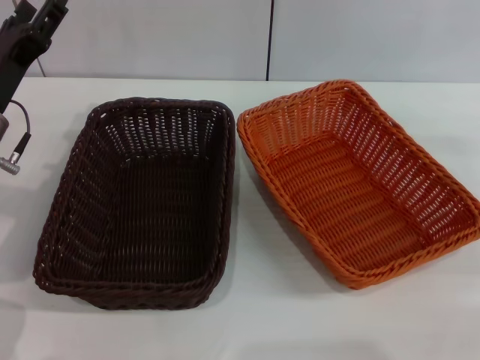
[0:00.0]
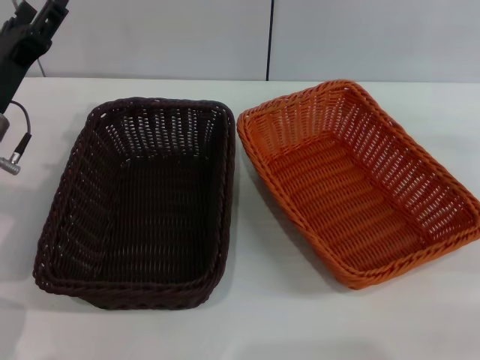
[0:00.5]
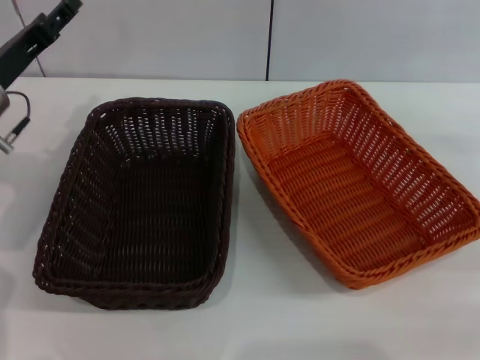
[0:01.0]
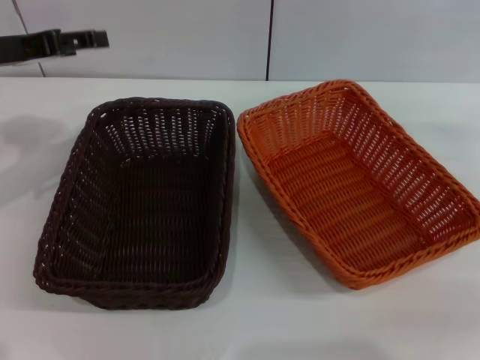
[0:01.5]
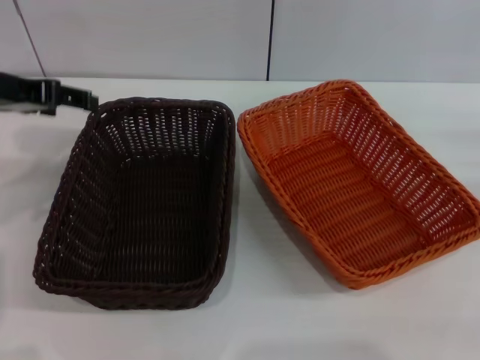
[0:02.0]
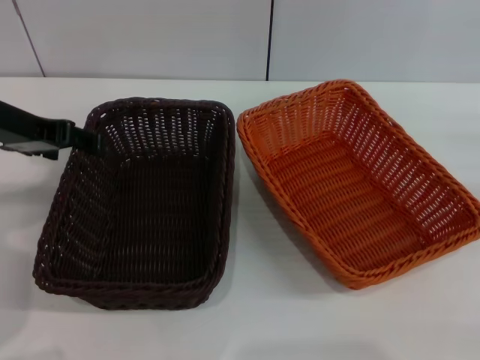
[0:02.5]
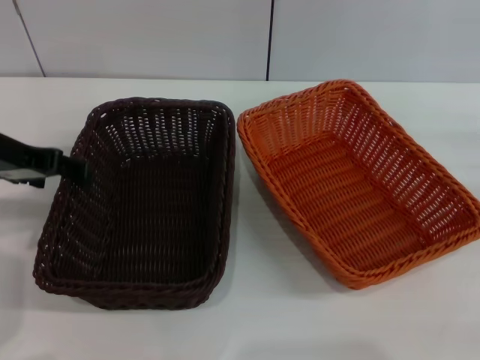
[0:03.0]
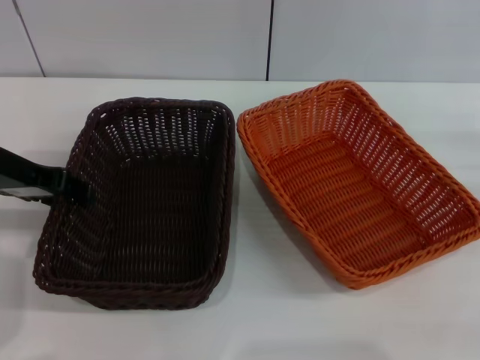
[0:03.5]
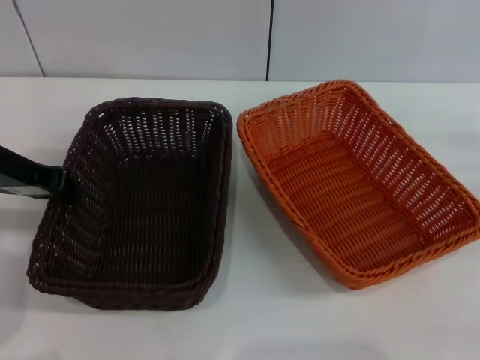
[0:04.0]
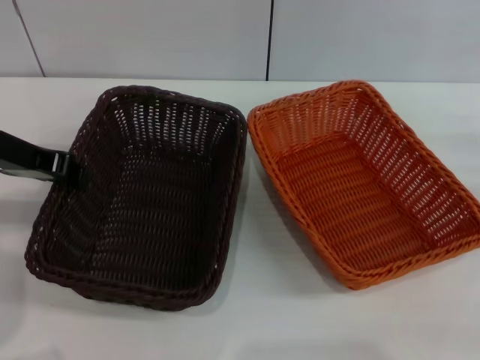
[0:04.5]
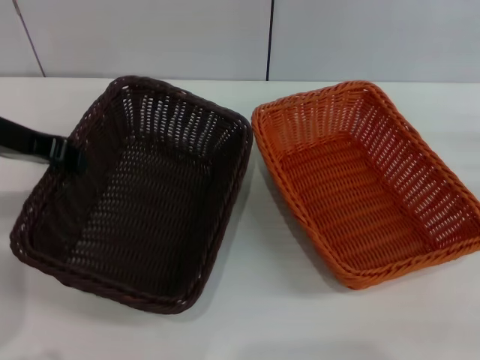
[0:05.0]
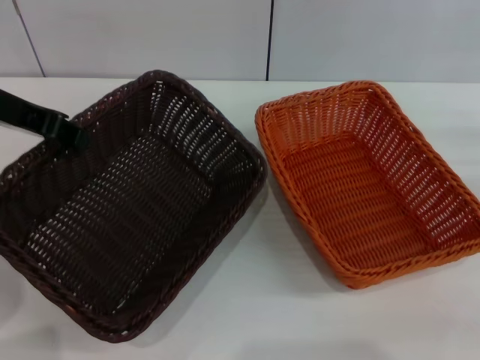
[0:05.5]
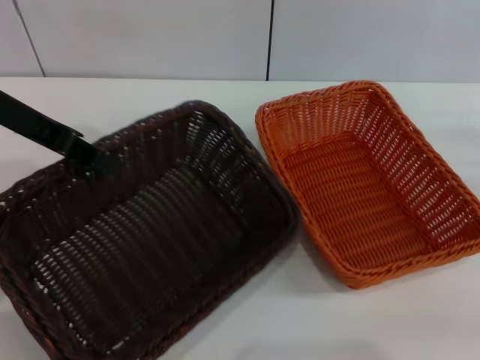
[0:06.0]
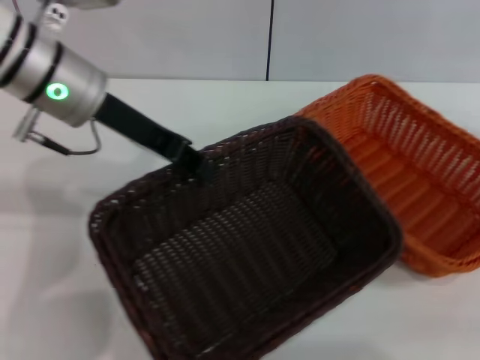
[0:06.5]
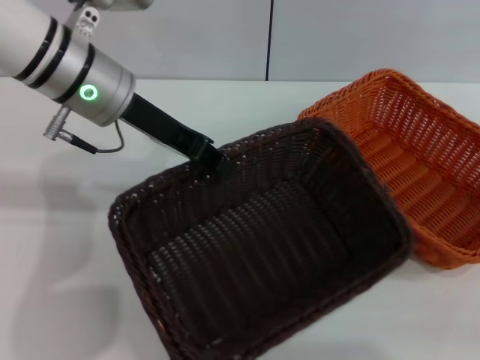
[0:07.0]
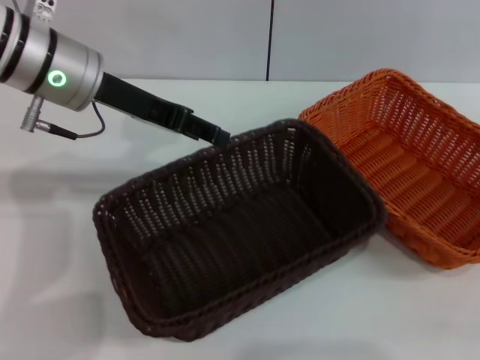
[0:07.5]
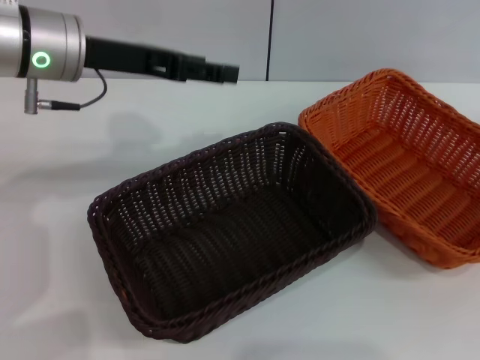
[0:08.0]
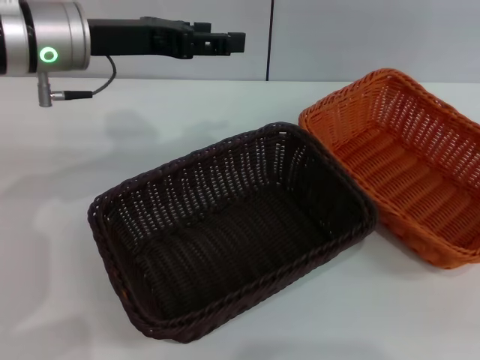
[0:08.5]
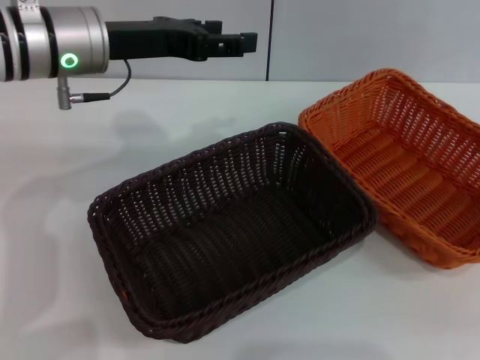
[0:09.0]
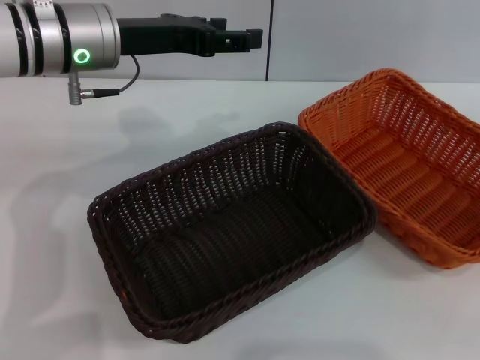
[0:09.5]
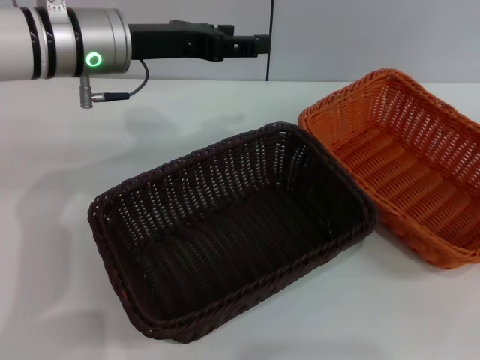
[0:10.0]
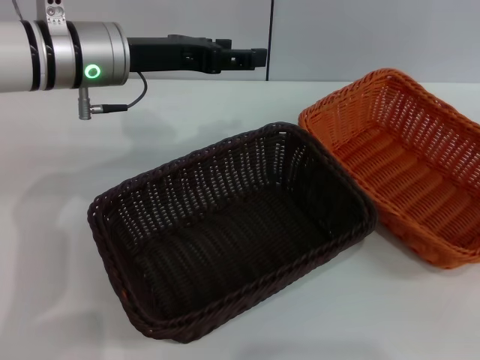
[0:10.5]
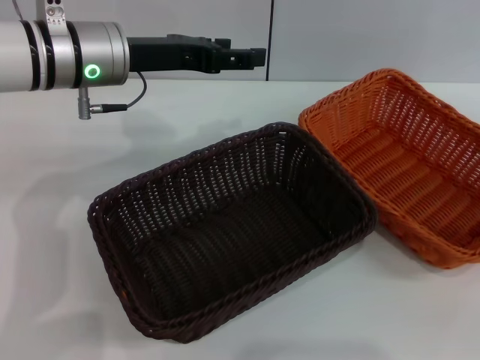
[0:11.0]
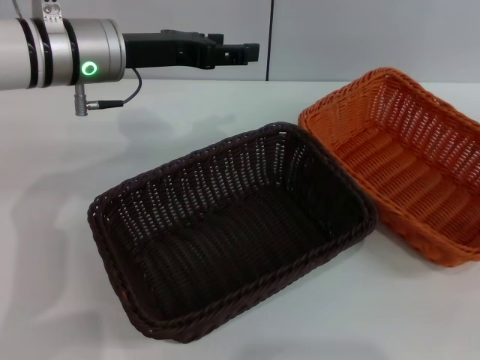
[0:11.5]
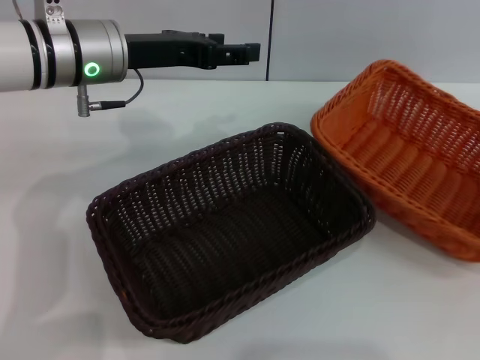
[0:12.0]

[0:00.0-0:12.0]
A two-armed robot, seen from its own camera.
Step, 0:00.0 to 0:04.5: Pick up the dark basket with the left gripper.
Step, 0:05.0 to 0:07.5: Place the dark basket in the center of view with the left gripper.
0:00.0 to 0:02.0: The left gripper is displaced upward by approximately 10 cm.
0:02.0 to 0:04.0: The left gripper closes up.
0:04.0 to 0:06.0: The left gripper heads upward, covering roughly 5 cm.
0:06.0 to 0:08.0: The left gripper is displaced to the right by some 5 cm, and opens; the right gripper moves upward, some 5 cm.
0:08.0 to 0:10.0: The right gripper goes about 10 cm backward and upward.
0:10.0 to 0:12.0: The right gripper travels downward by approximately 10 cm, and closes up.

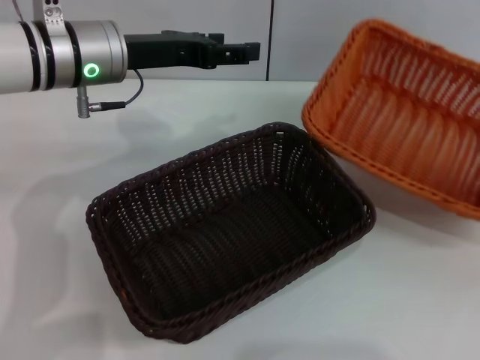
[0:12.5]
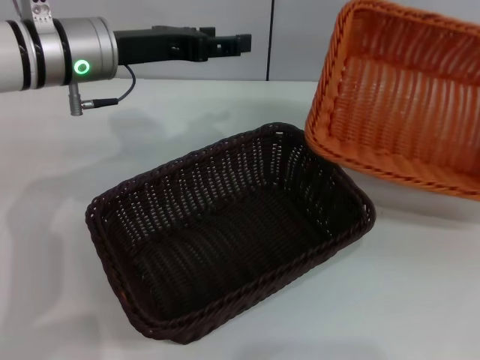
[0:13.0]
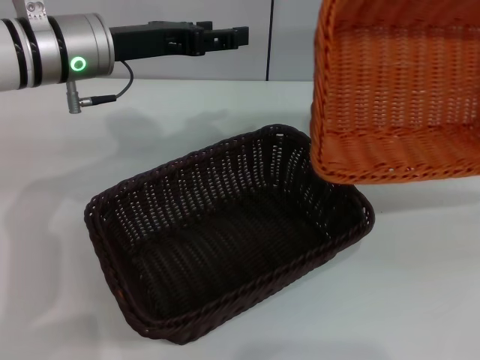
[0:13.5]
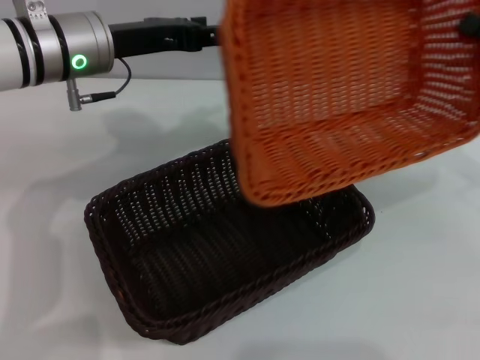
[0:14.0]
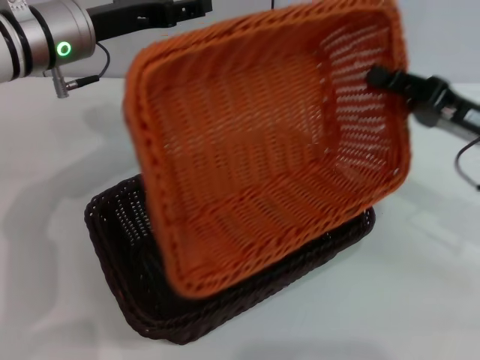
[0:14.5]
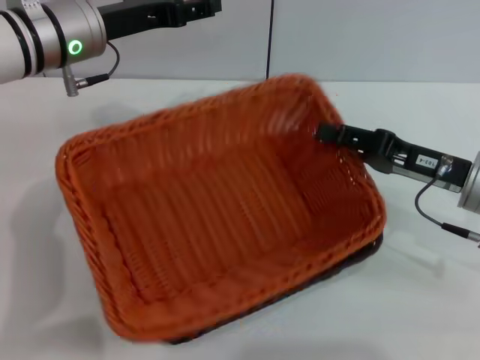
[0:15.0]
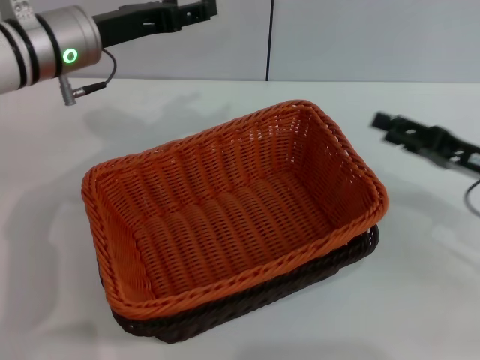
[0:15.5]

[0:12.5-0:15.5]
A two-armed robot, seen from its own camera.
Step, 0:13.0 to 0:15.0: Place the light basket on the dark basket with the right gripper.
0:12.5 to 0:14.0: The right gripper shifts some 10 cm to the left.
0:14.0 to 0:15.5: The right gripper heads downward, covering approximately 5 cm, and opens its fingers.

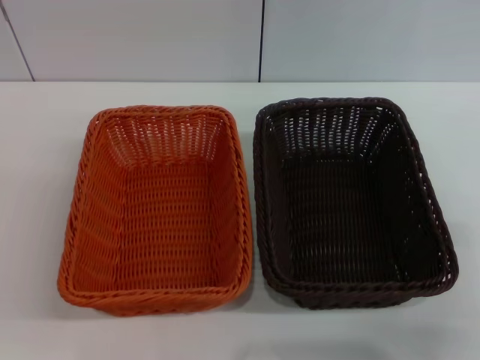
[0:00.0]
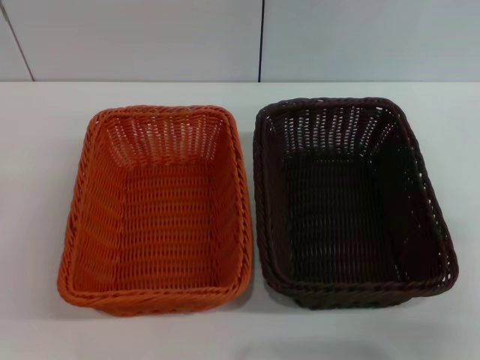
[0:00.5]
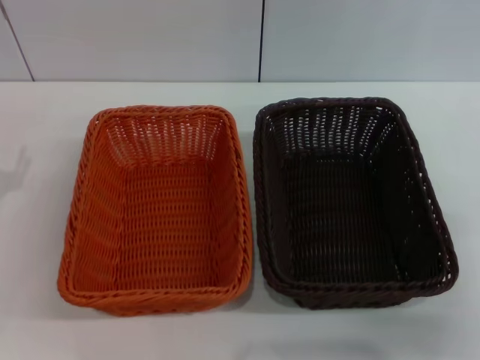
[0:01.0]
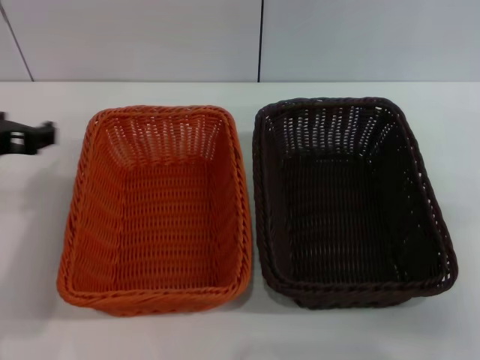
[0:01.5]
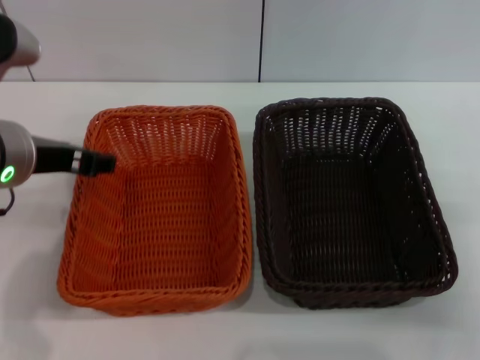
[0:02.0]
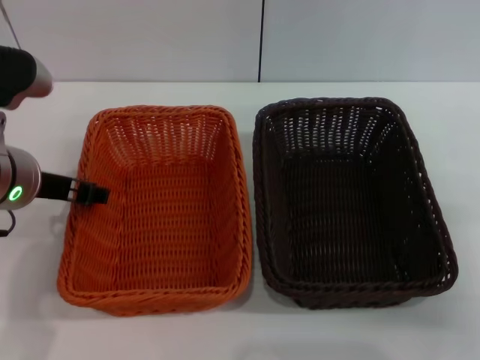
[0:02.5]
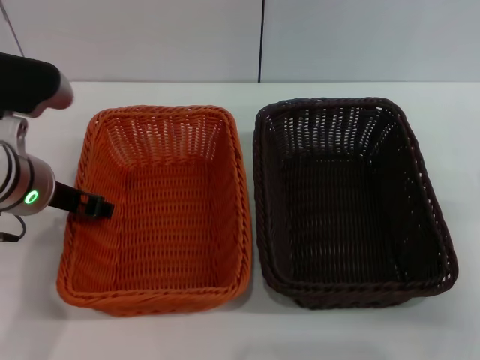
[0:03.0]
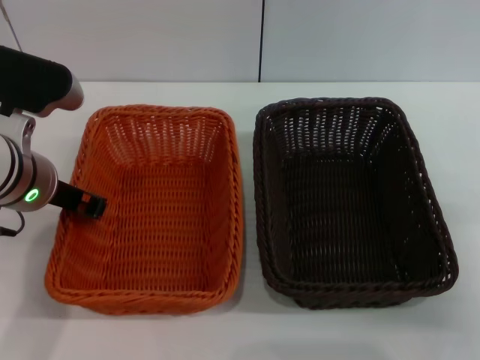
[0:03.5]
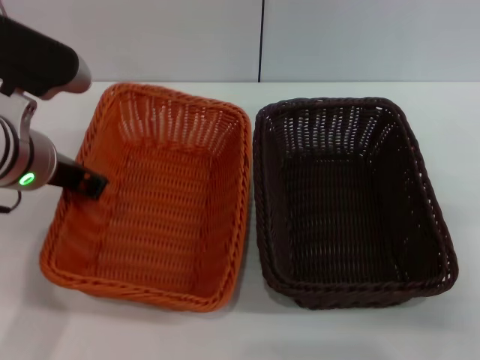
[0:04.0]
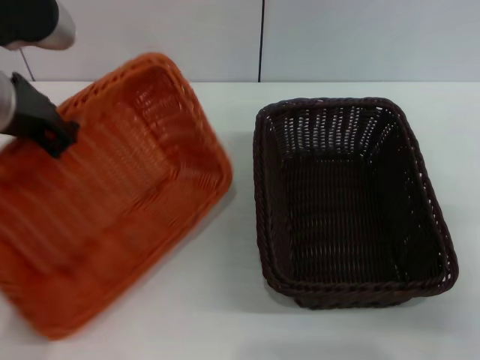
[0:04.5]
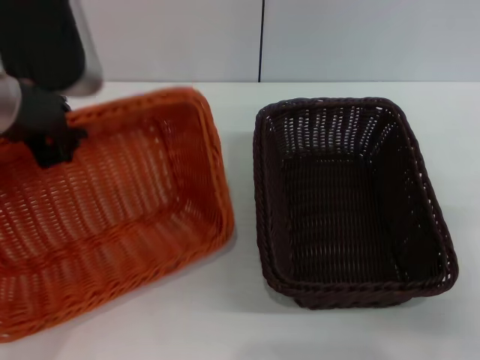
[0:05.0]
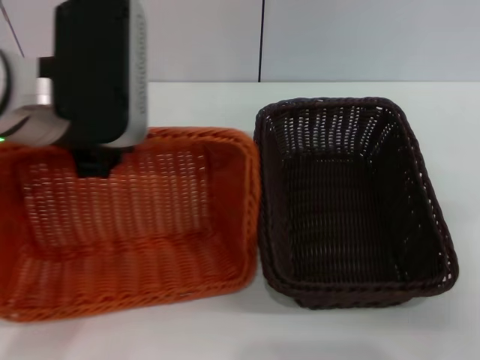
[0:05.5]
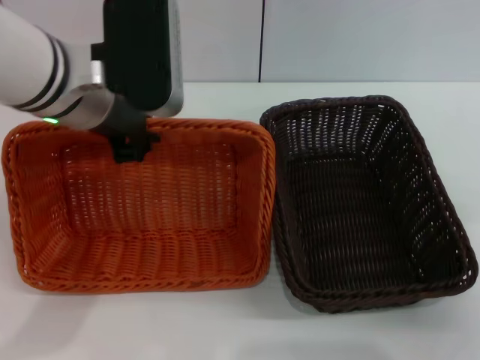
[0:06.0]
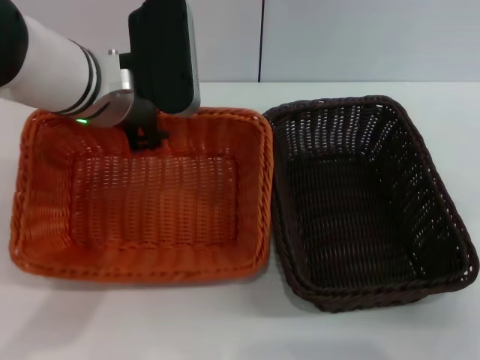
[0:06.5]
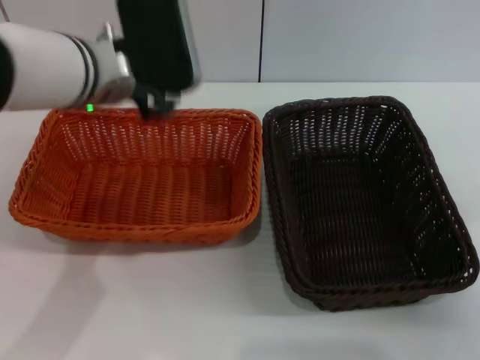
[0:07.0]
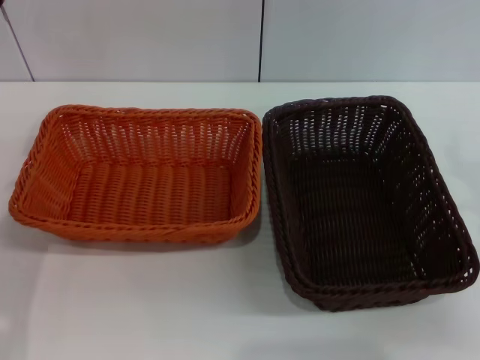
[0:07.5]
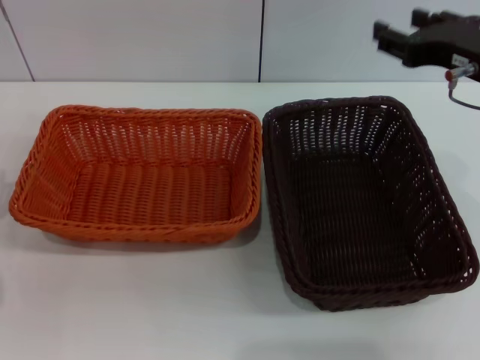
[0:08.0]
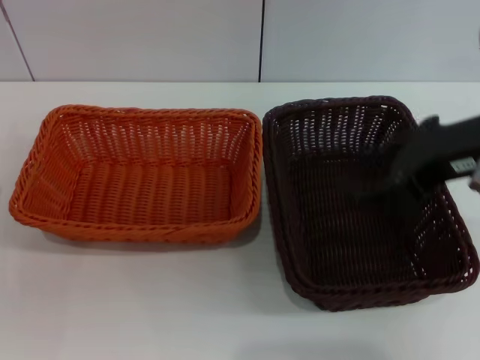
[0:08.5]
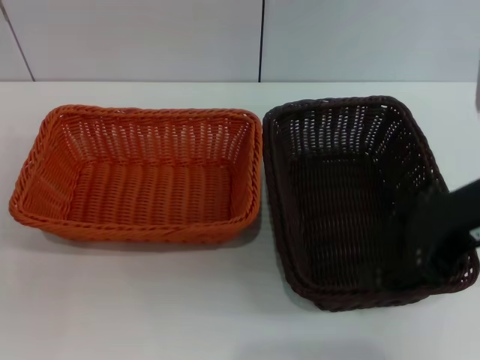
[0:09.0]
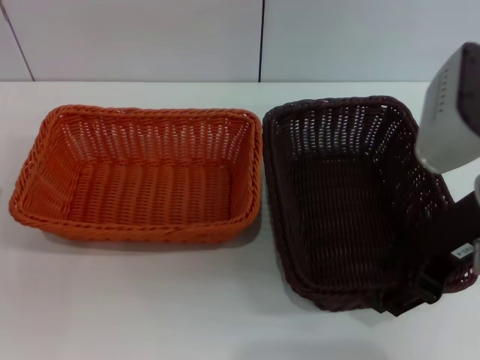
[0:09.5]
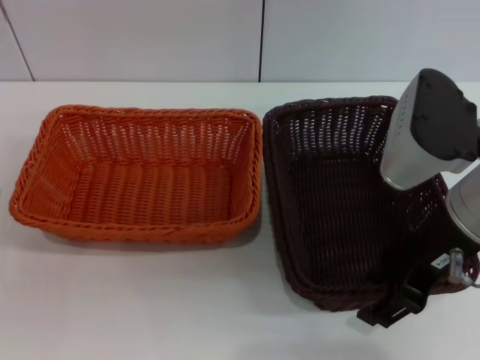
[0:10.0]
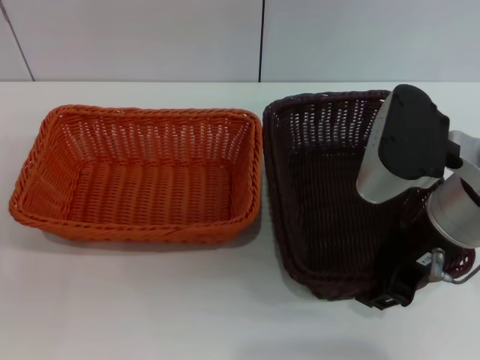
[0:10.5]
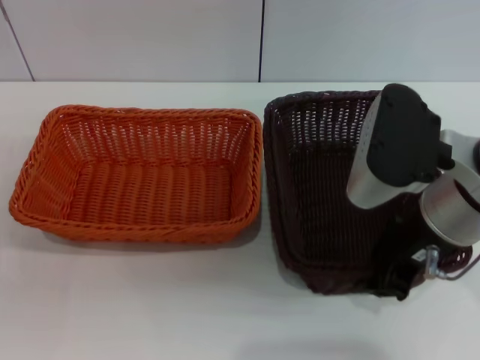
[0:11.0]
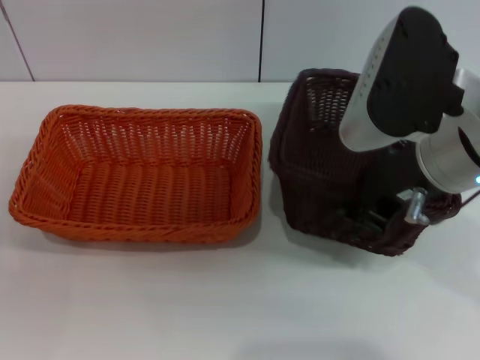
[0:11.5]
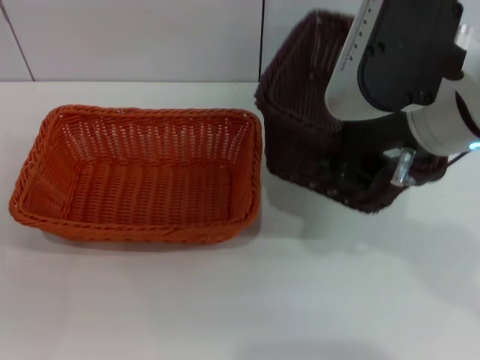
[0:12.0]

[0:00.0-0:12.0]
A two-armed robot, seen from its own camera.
Step, 0:00.0 to 0:04.0: Pick up the light basket with the left gripper.
Step, 0:04.5 to 0:06.5: Place the light basket in the center of view with the left gripper.
Step, 0:07.0 to 0:11.5: Pick up the dark basket with the right gripper.
0:00.0 to 0:02.0: The left gripper travels upward, to the right and forward by about 25 cm.
0:02.0 to 0:04.0: The left gripper closes.
0:04.0 to 0:06.0: The left gripper moves upward and to the right, approximately 10 cm.
0:06.0 to 0:08.0: The left gripper moves to the left, downward and backward, approximately 25 cm, and opens its fingers. The right gripper heads upward, forward and to the left, covering some 20 cm.
0:08.0 to 0:10.0: The right gripper changes place by approximately 5 cm.
0:10.0 to 0:12.0: The right gripper heads upward, covering approximately 5 cm, and closes.
